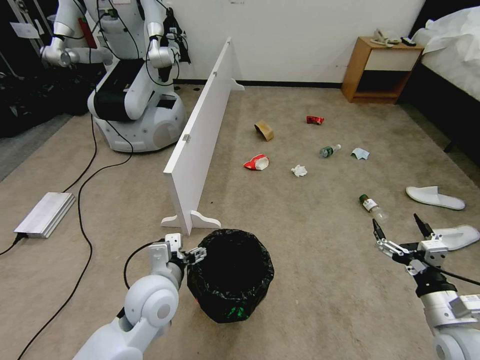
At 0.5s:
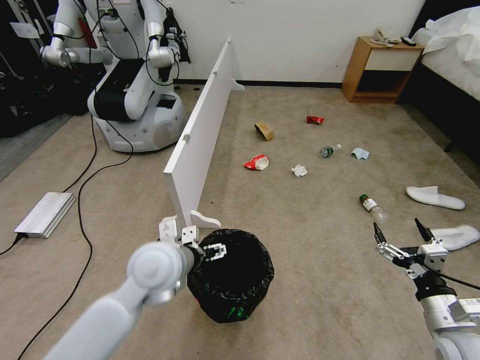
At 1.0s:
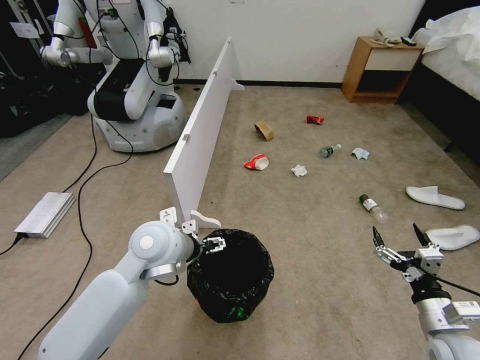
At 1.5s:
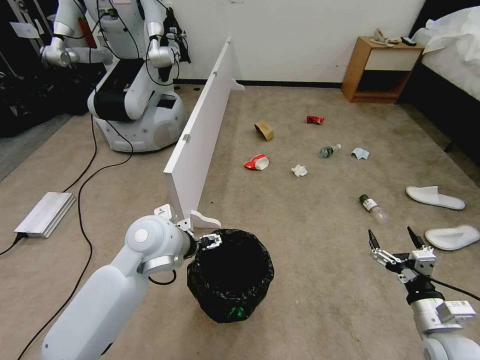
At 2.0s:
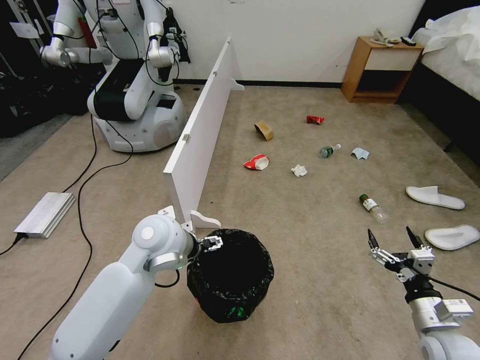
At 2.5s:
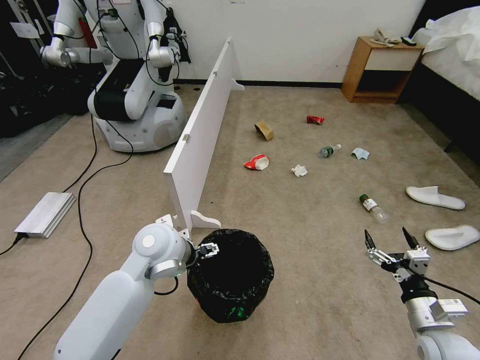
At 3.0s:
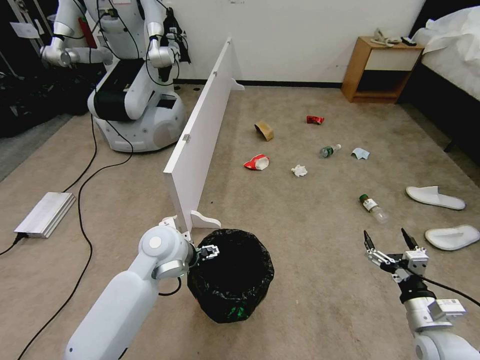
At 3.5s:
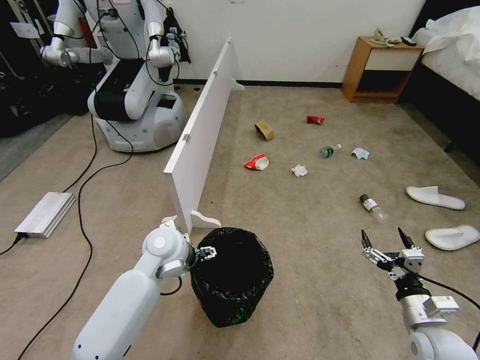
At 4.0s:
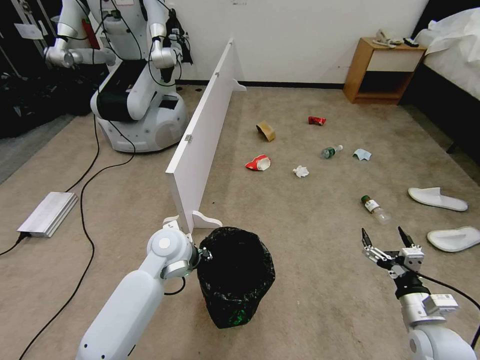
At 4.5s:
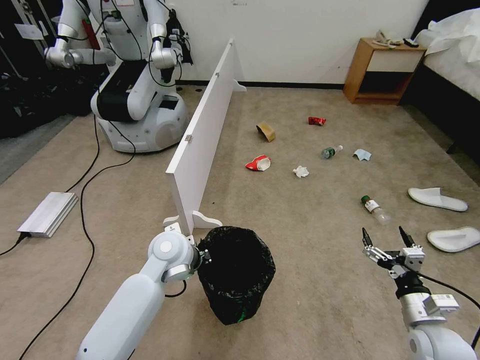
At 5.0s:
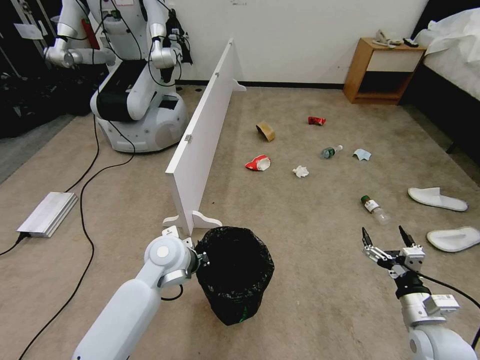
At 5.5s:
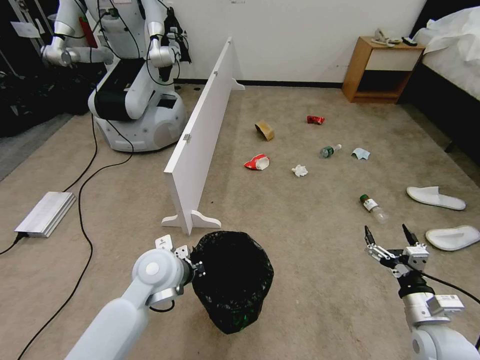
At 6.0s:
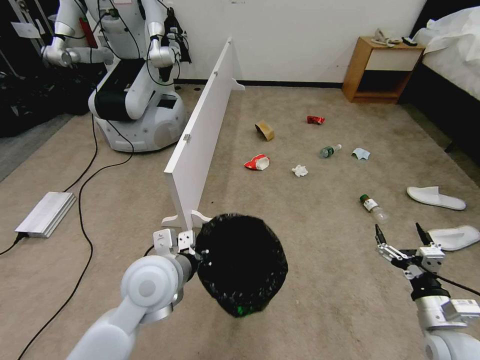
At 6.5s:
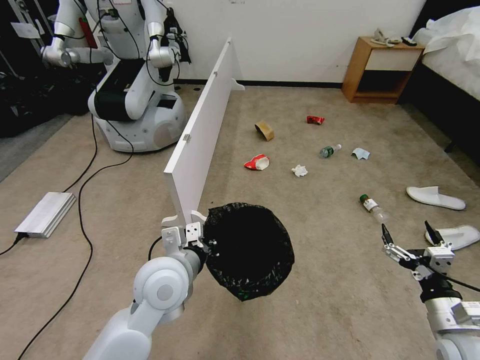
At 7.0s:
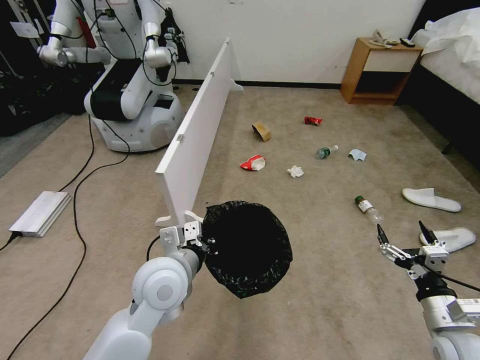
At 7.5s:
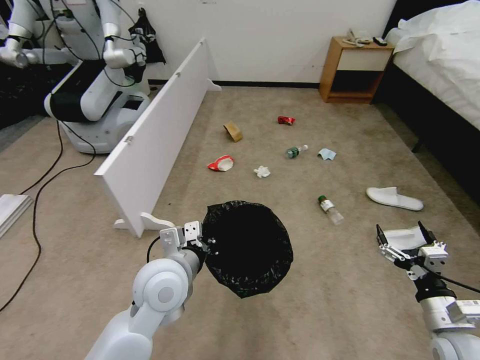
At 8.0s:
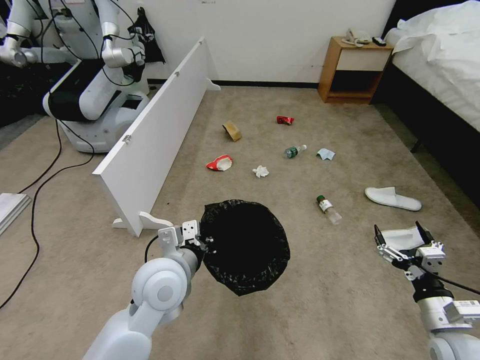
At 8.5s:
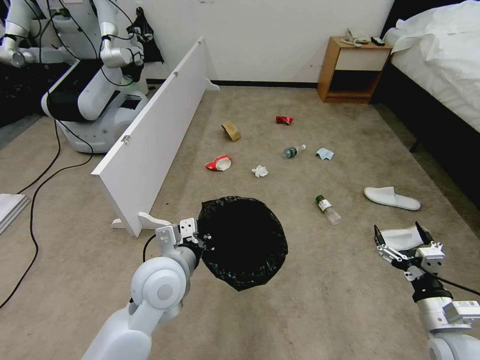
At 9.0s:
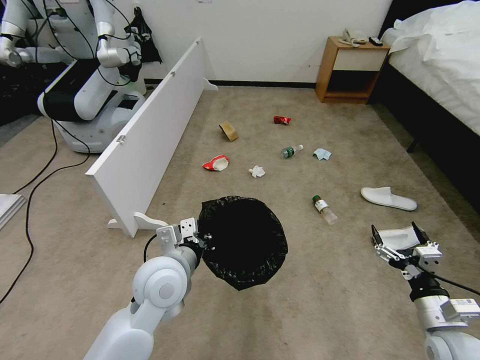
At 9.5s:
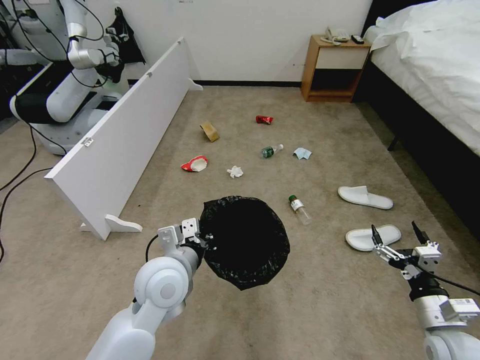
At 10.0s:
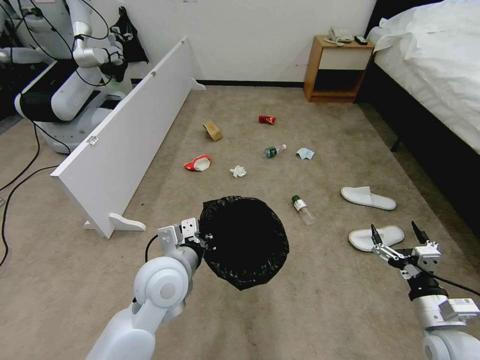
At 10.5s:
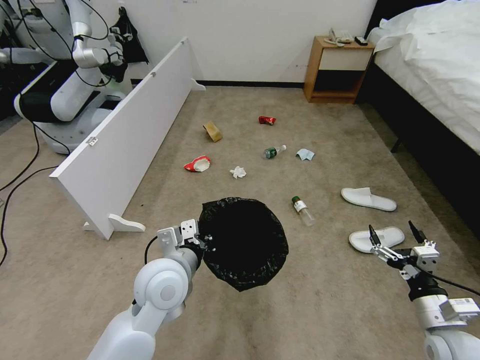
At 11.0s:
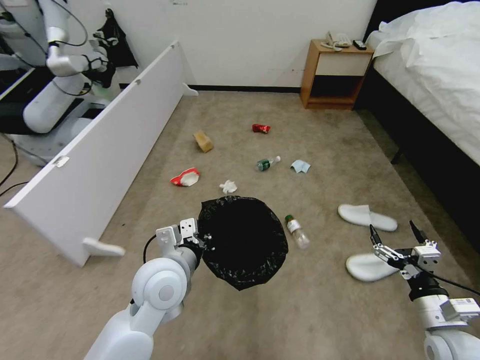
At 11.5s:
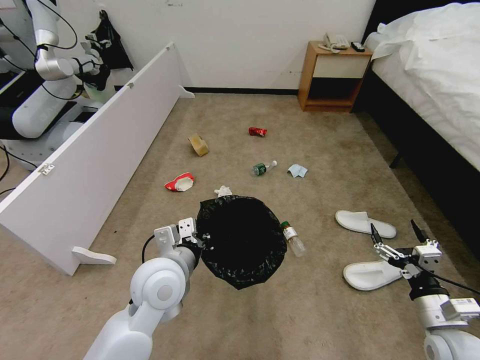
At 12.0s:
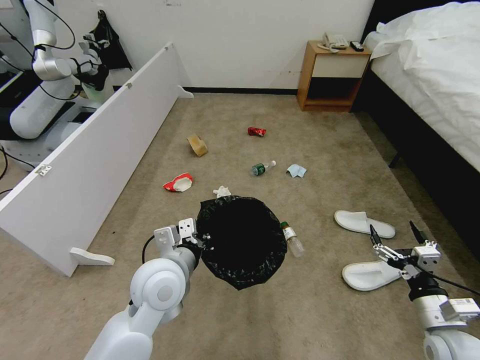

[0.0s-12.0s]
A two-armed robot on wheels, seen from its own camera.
Task of the whole recording: Pick up the trash bin, then pick up the garbage from the floor and place it into the trash bin.
0.0s to 2.0s: The left gripper heads forward and upward, covering some 10 cm.
2.0s to 4.0s: The left gripper moves downward, approximately 5 cm, and closes.
4.0s to 6.0s: The left gripper goes about 10 cm backward and upward, and closes.

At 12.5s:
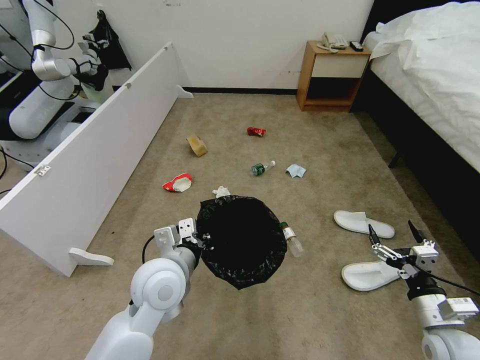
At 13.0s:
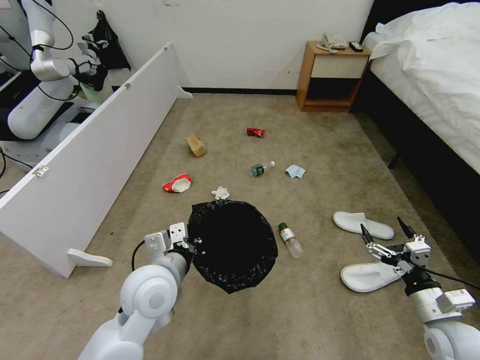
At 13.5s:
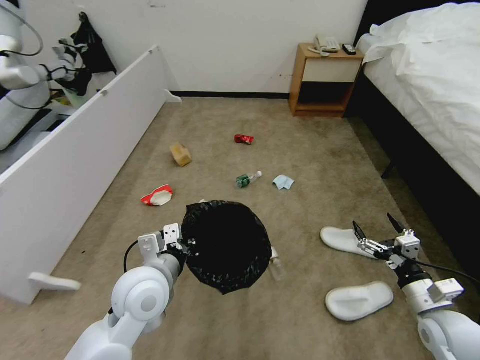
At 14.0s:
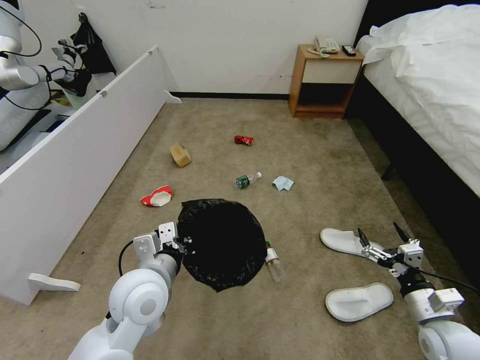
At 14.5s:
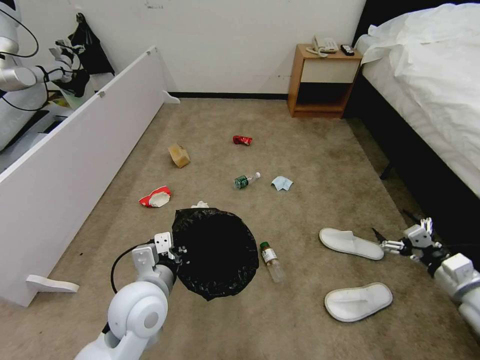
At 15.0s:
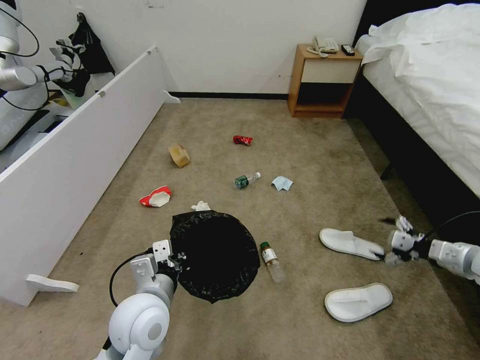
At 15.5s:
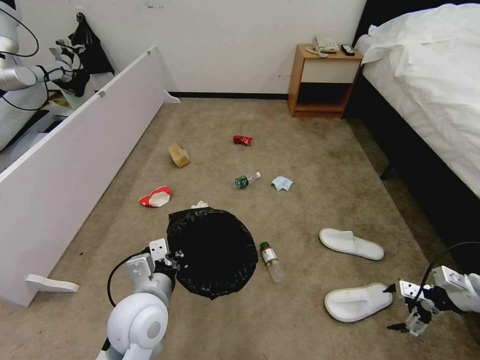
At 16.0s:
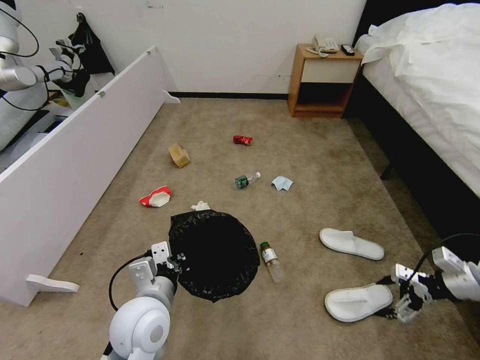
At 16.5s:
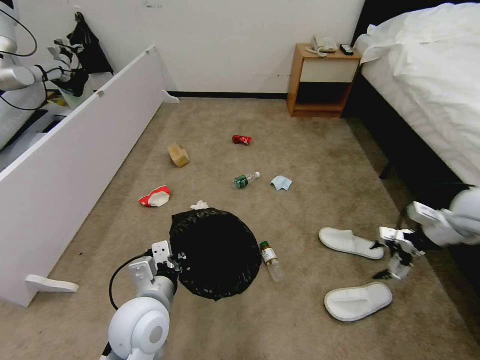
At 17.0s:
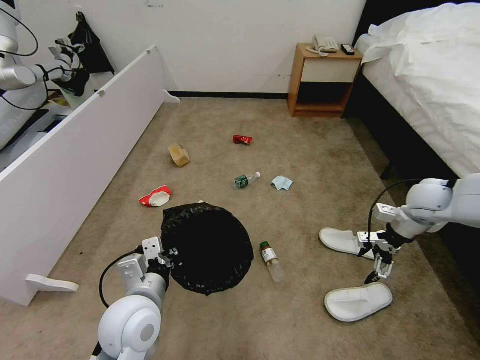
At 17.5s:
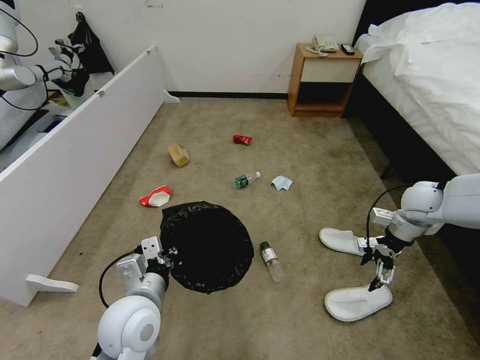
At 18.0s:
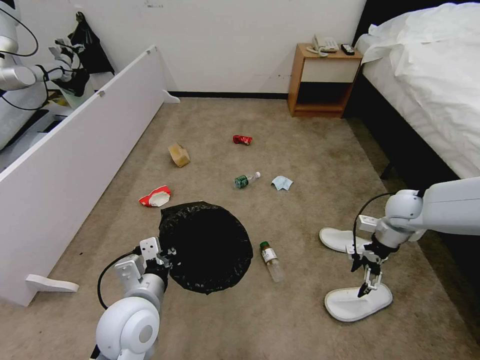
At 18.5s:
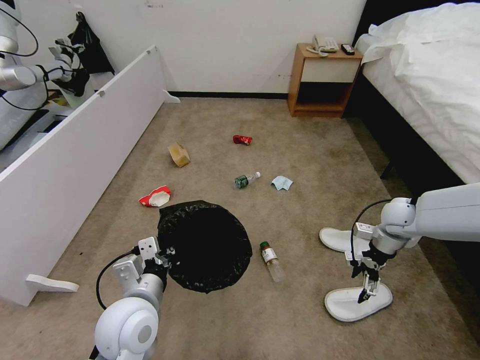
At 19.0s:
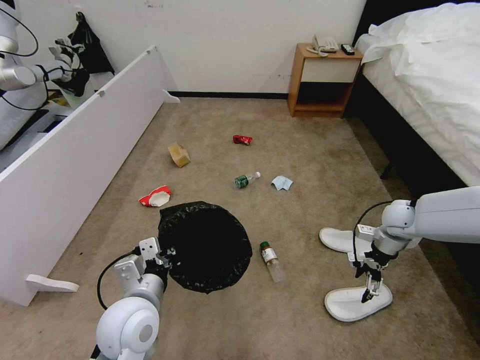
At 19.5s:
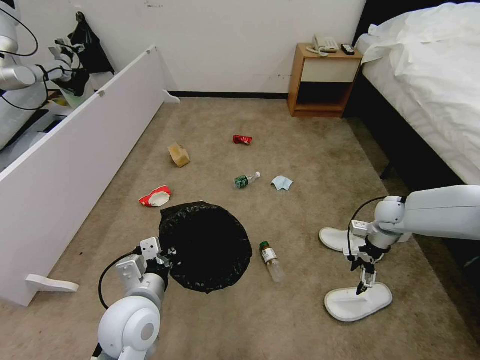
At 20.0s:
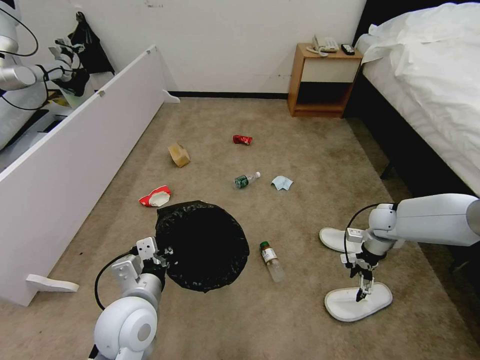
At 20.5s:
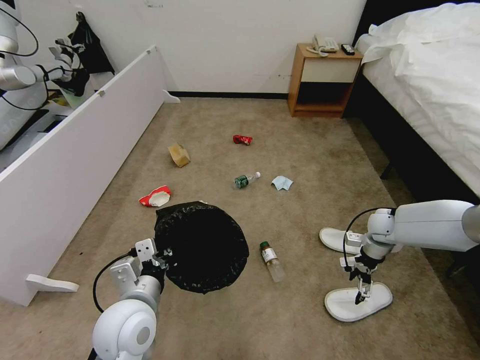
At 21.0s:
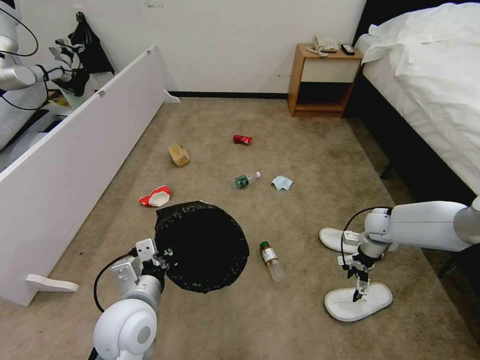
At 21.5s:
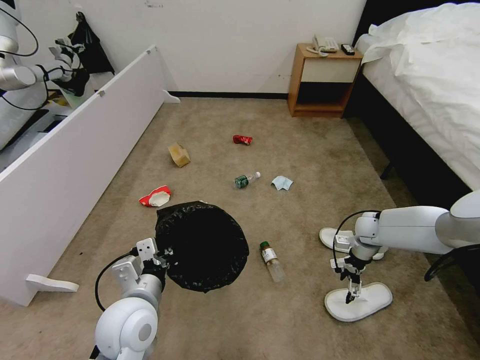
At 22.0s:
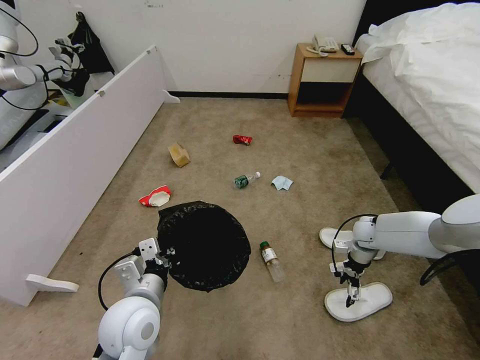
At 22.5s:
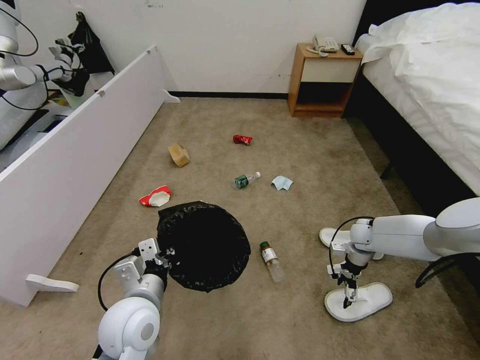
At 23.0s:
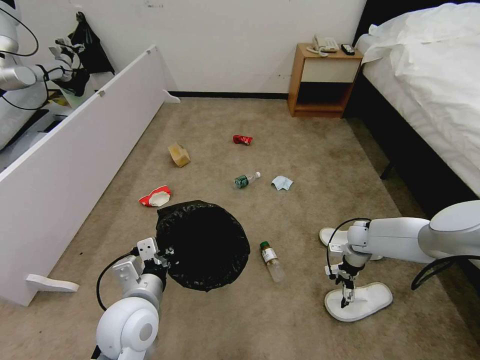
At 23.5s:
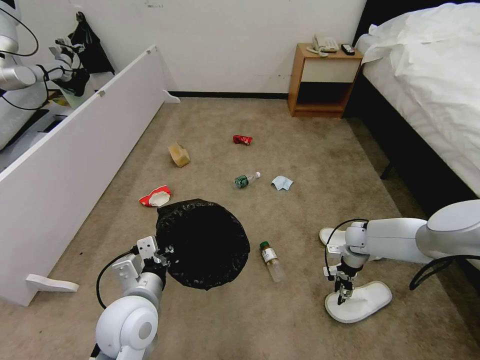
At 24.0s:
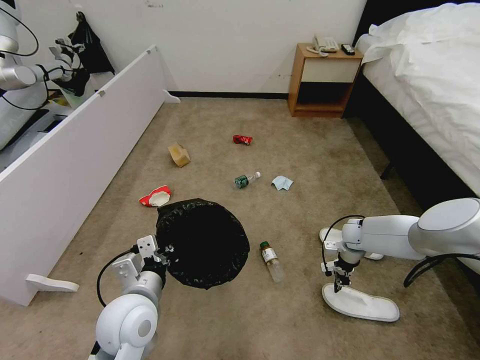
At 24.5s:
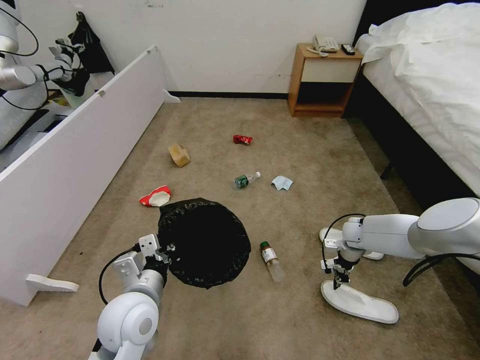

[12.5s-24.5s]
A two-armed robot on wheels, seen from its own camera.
Task of the whole recording: Pick up the trash bin, then pick up the garbage from the floor and place it into the trash bin.
12.5s to 14.5s: The right gripper travels to the right and forward by roughly 10 cm. Meanwhile the left gripper shifts by some 5 cm.
14.5s to 16.5s: The right gripper shifts about 20 cm forward and upward.
16.5s to 18.5s: The right gripper travels downward, forward and to the left by about 15 cm.
18.5s to 20.5s: The right gripper heads downward, covering roughly 5 cm.
20.5s to 22.5s: The right gripper travels downward by about 5 cm.
22.5s to 24.5s: The right gripper closes its fingers.

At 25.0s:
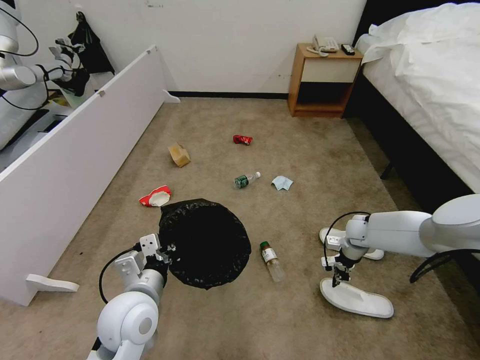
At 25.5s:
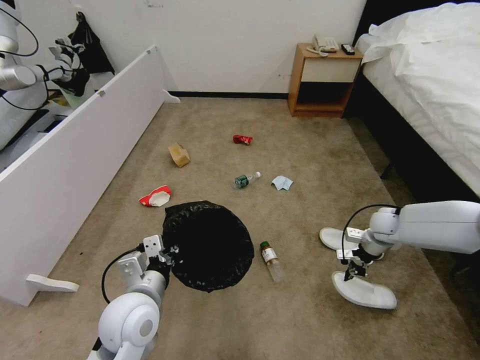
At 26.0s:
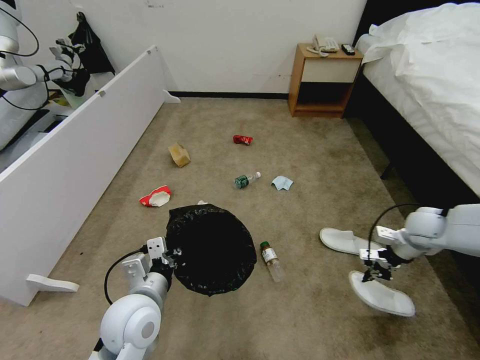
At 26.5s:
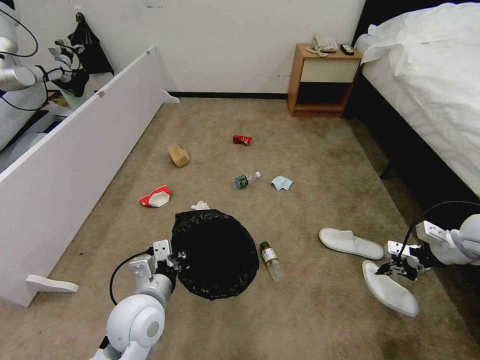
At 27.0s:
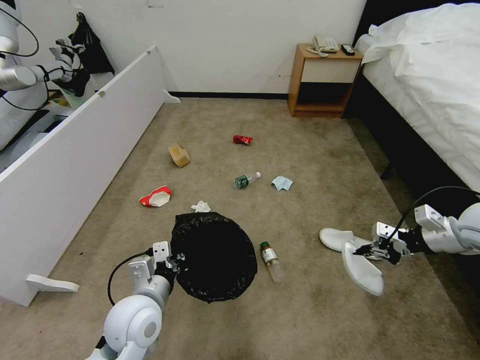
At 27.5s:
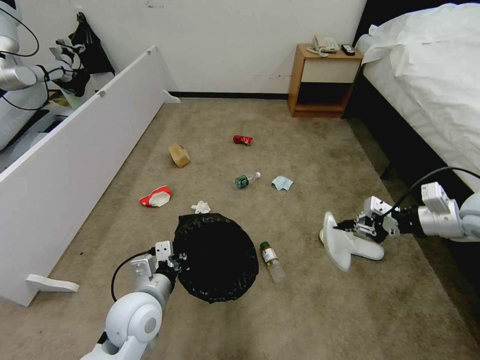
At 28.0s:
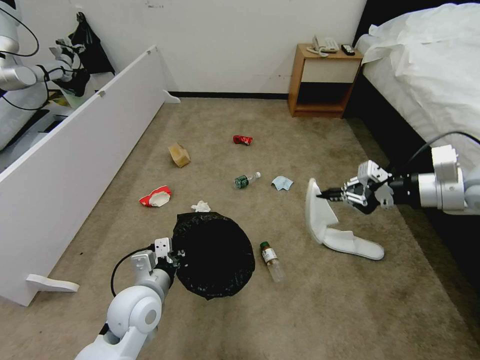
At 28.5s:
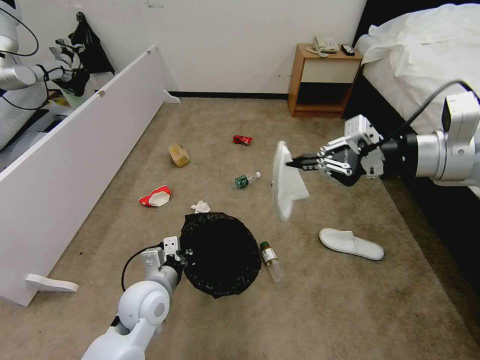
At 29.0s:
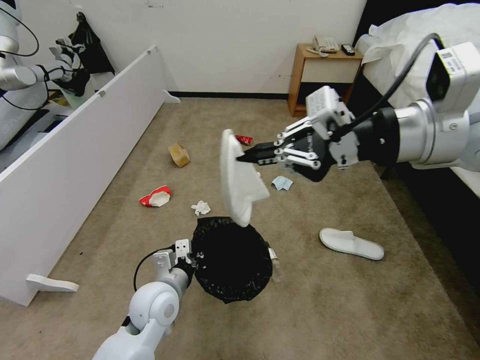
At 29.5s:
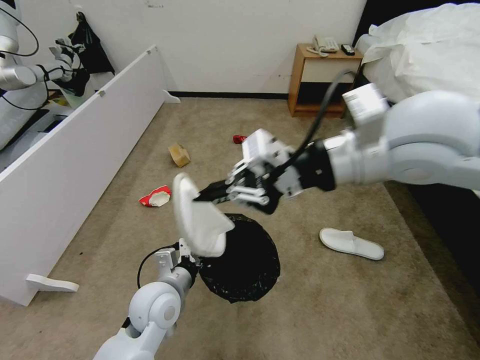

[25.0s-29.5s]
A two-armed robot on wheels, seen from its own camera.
Task of the whole recording: Pick up the trash bin, then pick up the garbage from the floor and place it into the trash bin.
25.0s to 27.0s: The right gripper travels upward, backward and to the right by some 30 cm.
27.0s to 29.5s: The right gripper shifts about 35 cm to the left and upward.
